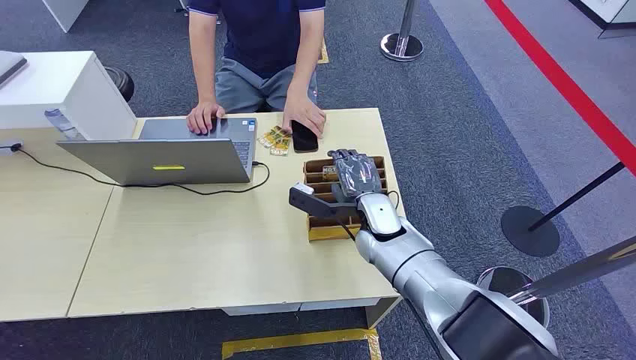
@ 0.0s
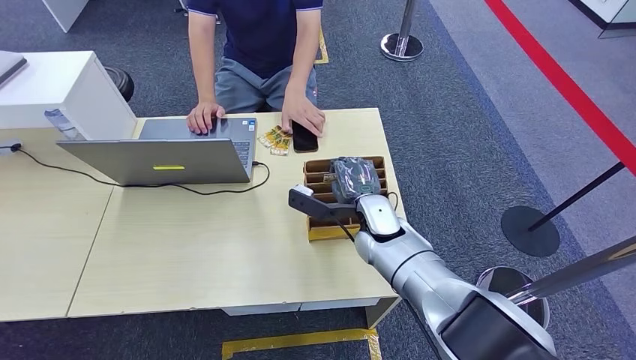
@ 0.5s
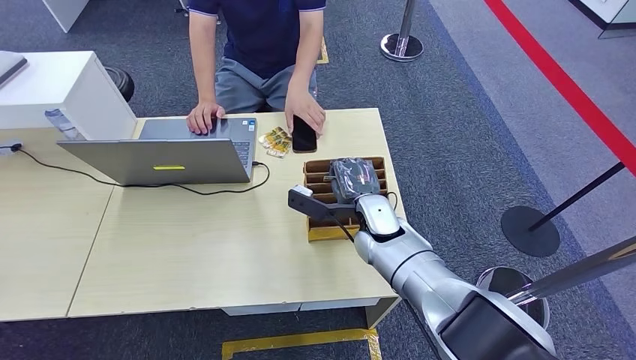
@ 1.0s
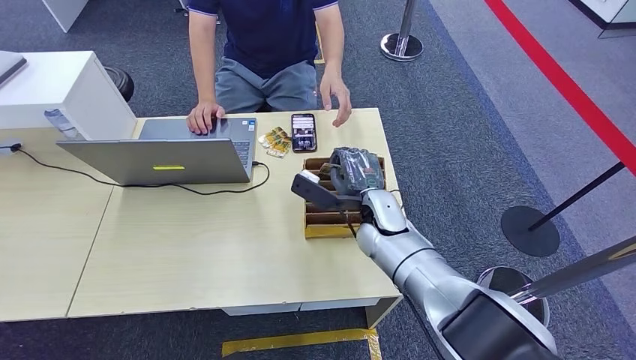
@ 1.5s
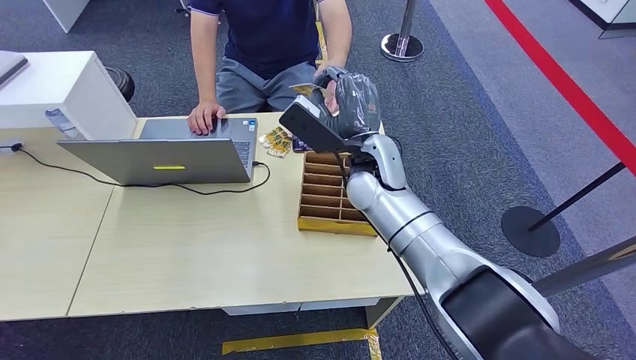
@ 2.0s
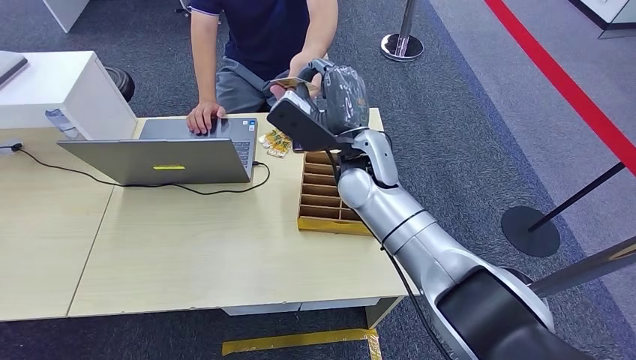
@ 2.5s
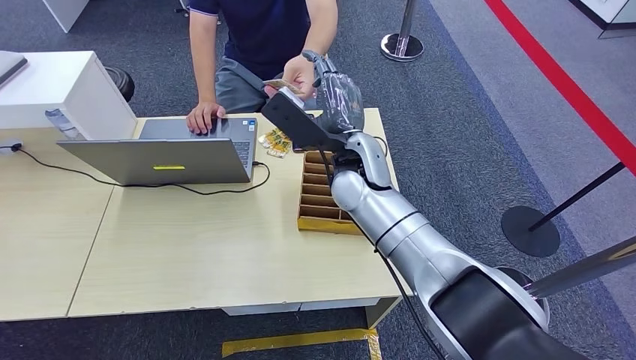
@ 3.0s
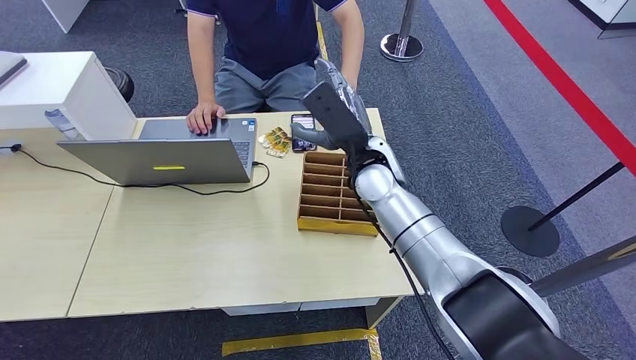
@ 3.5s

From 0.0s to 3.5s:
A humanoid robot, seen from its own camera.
Step, from 0.0s to 1.5s: Pick up the room card from the card holder.
Step, from 2.0s to 3.5s: Hand the room card to the target.
From 2.0s to 3.5s: The right hand goes approximately 15 cm to the right and downward.
